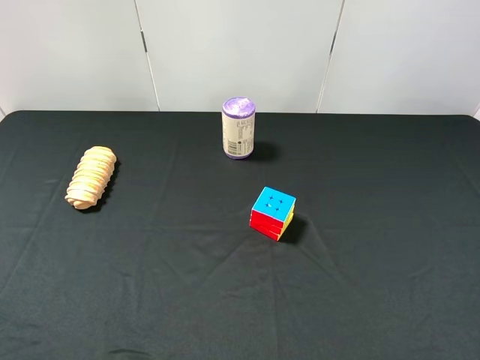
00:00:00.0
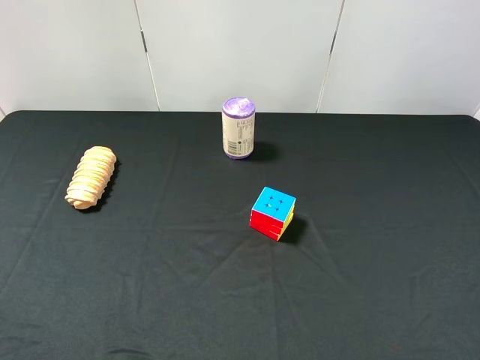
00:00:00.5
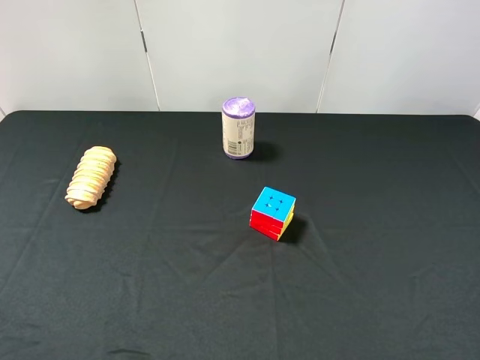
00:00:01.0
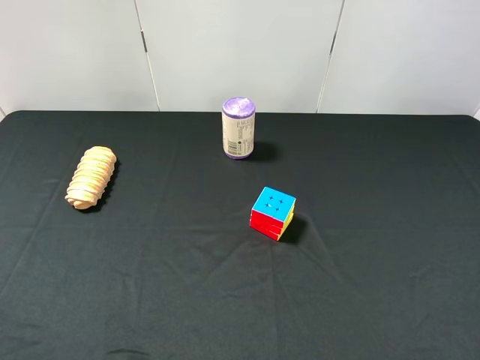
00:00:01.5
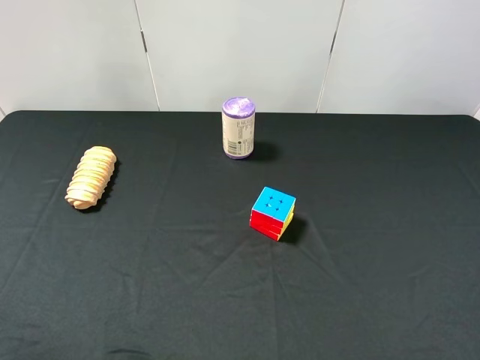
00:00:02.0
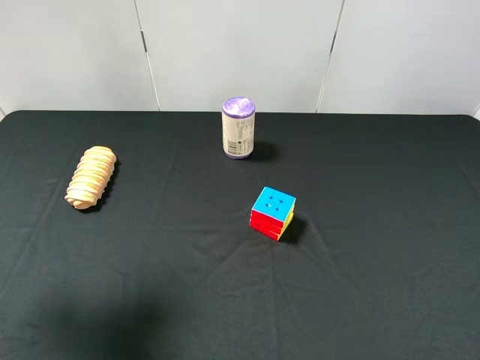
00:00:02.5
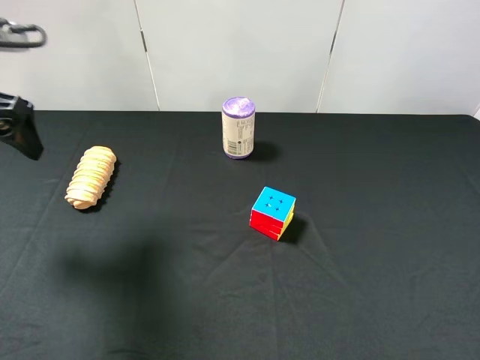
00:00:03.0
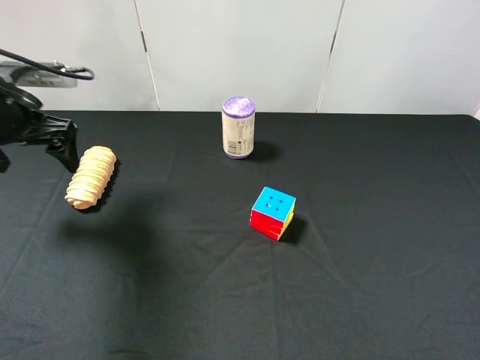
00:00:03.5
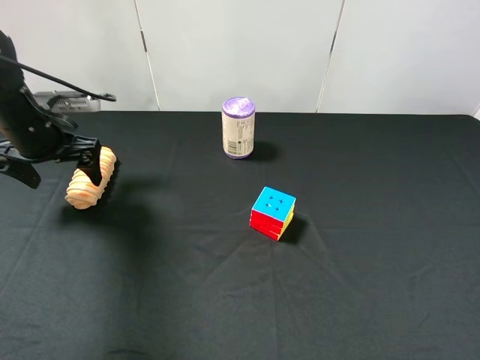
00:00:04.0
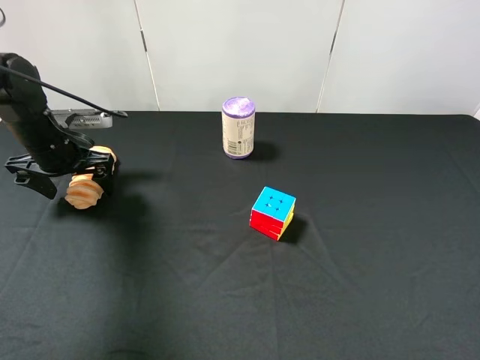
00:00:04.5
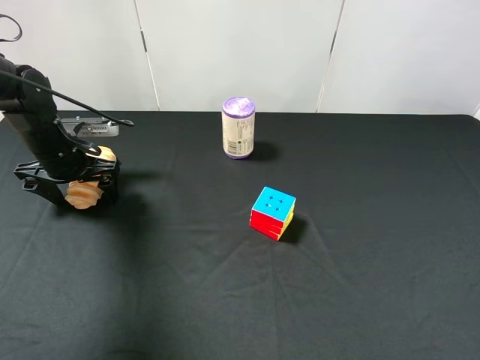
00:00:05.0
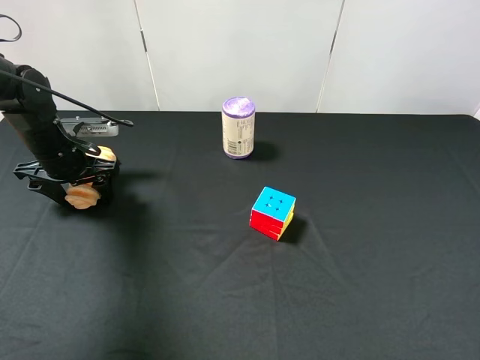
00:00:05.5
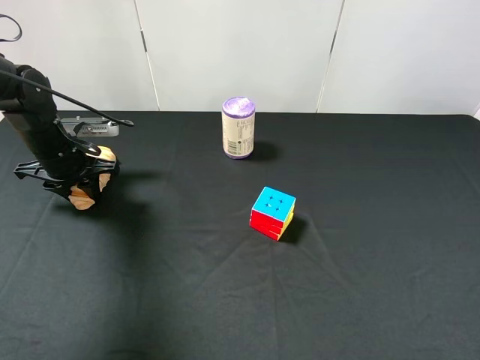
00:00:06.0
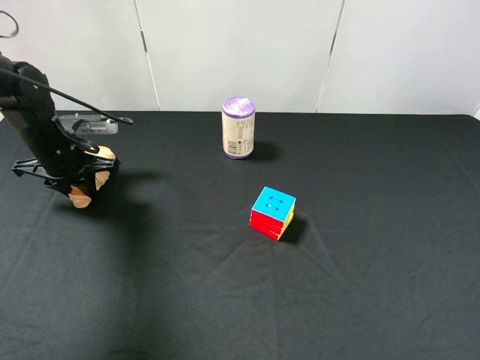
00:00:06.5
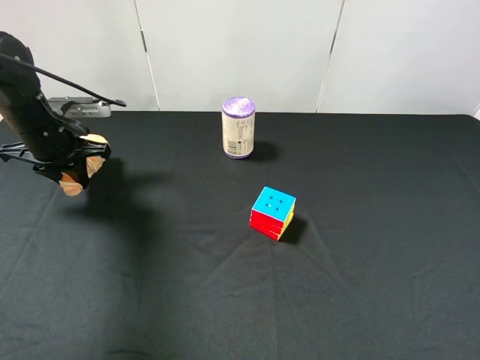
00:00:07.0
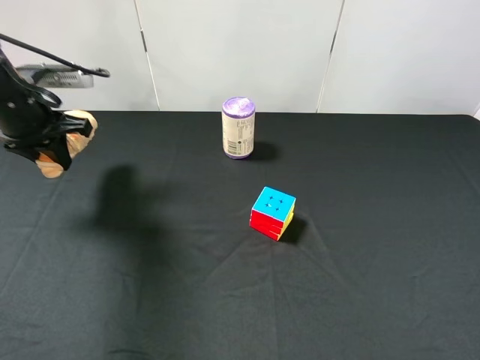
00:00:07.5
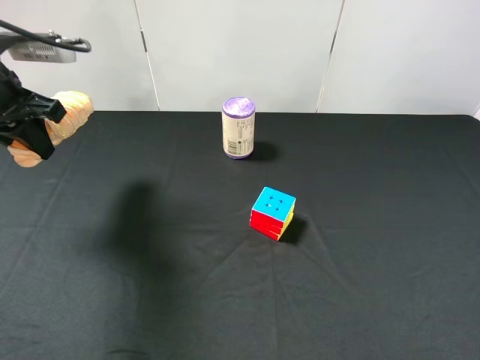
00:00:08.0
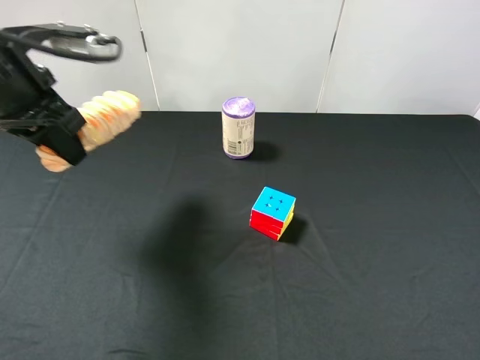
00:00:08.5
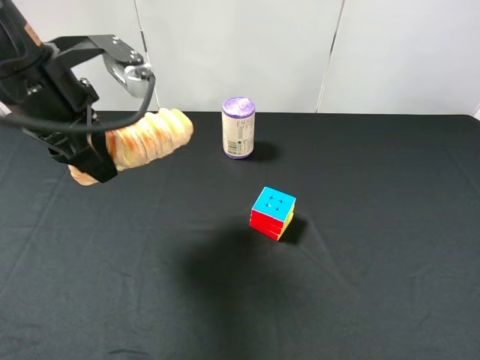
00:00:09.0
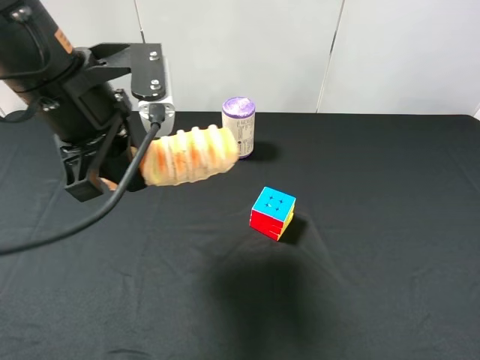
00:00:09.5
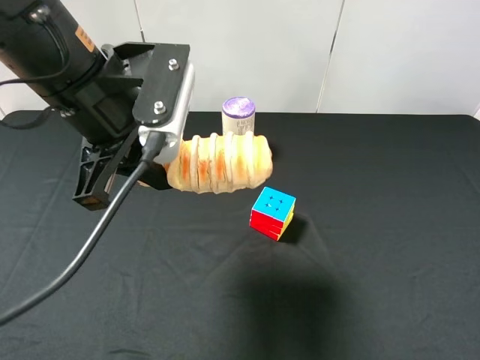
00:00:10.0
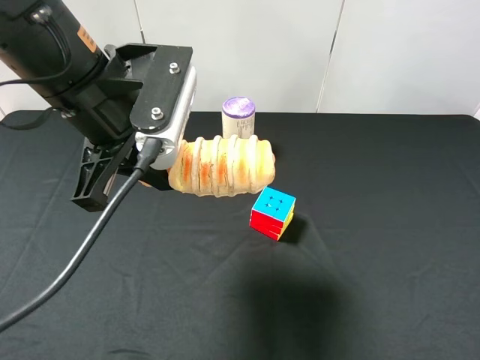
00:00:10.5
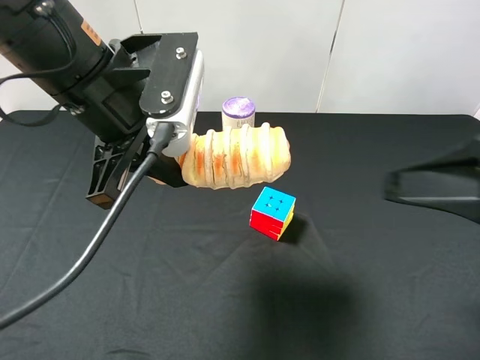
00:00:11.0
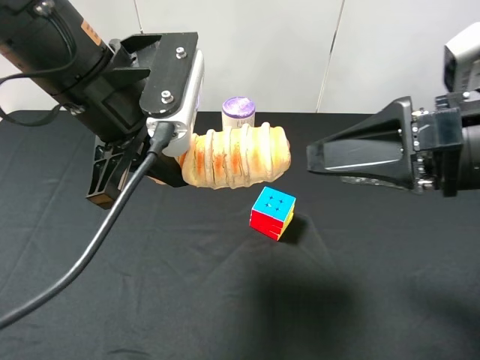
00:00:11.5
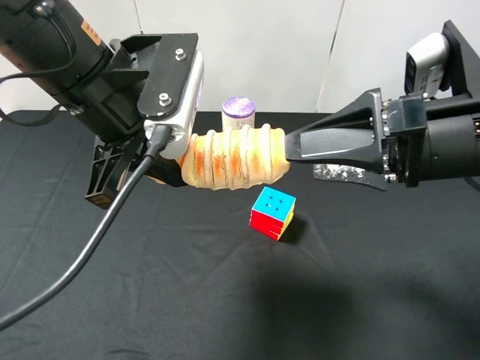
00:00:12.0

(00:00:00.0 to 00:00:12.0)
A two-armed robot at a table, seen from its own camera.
Task of the whole recording: use the left gripper to pick up the item and transfer it from the left gripper to the right gripper.
00:00:02.0 - 00:00:04.0: The left gripper goes about 35 cm forward and downward.
00:00:04.0 - 00:00:06.0: The left gripper heads downward, covering some 5 cm, and closes.
00:00:06.0 - 00:00:08.0: The left gripper moves upward and backward, approximately 15 cm.
00:00:08.0 - 00:00:10.0: The left gripper moves to the right and backward, some 15 cm.
00:00:10.0 - 00:00:12.0: The right gripper travels forward and to the left by approximately 20 cm.

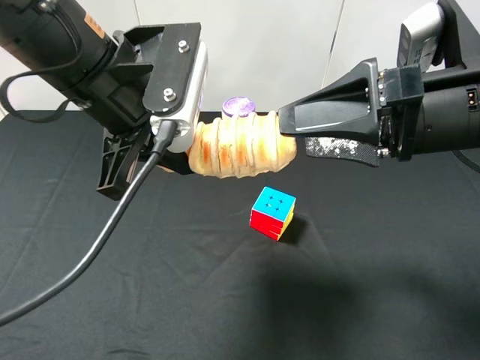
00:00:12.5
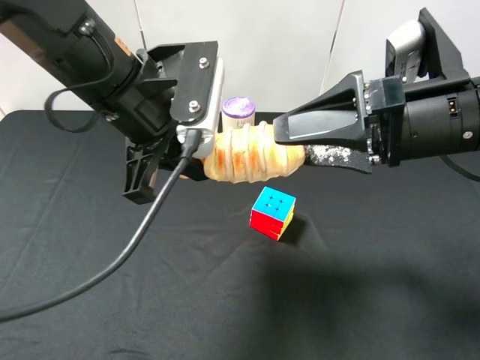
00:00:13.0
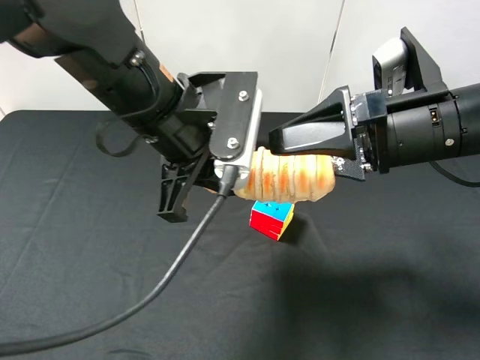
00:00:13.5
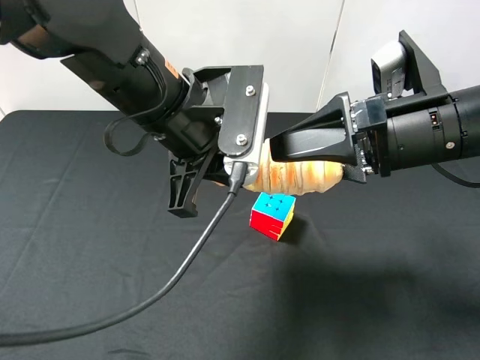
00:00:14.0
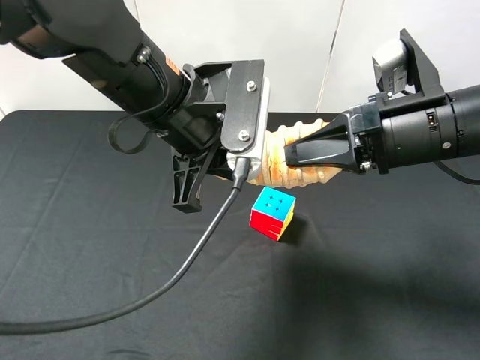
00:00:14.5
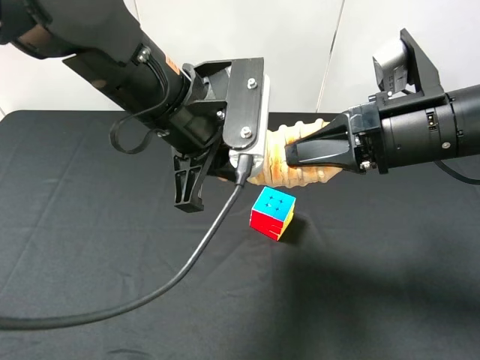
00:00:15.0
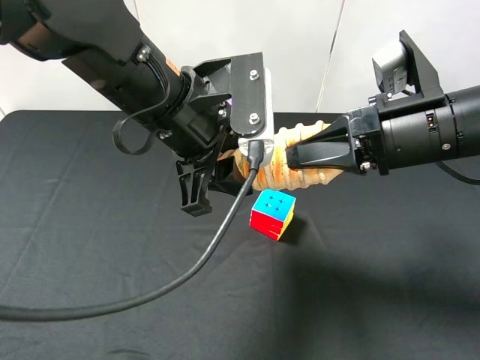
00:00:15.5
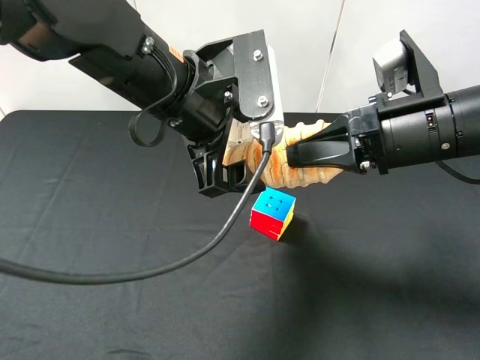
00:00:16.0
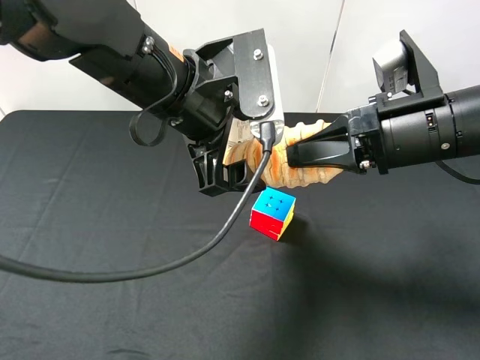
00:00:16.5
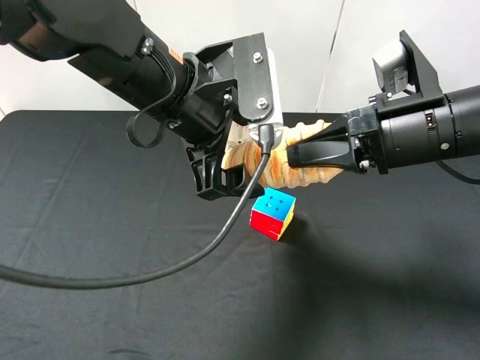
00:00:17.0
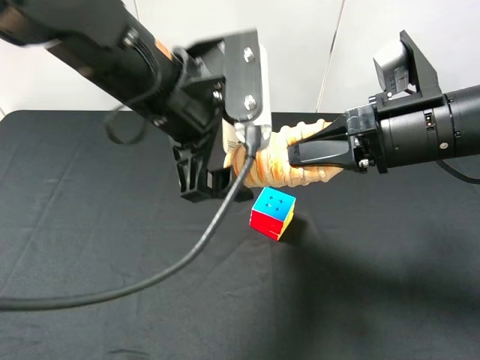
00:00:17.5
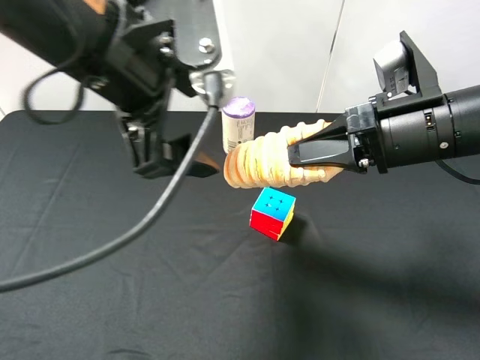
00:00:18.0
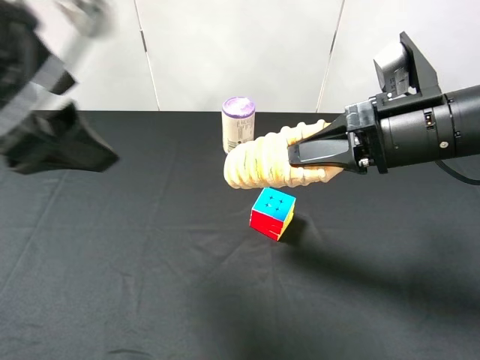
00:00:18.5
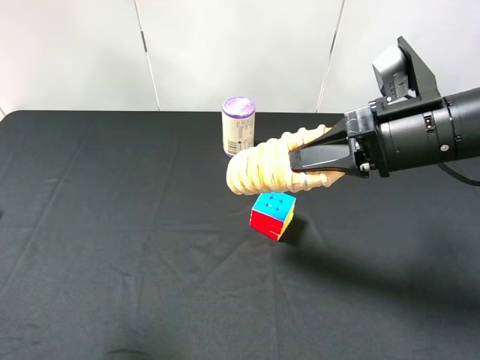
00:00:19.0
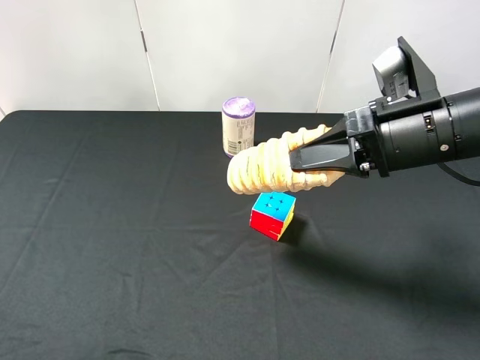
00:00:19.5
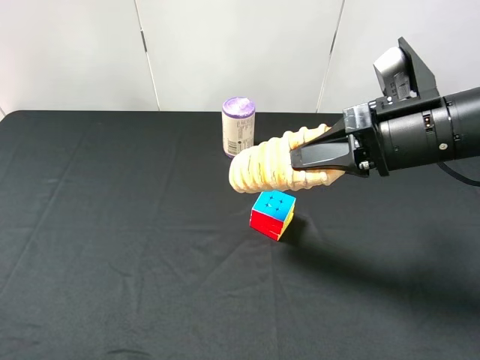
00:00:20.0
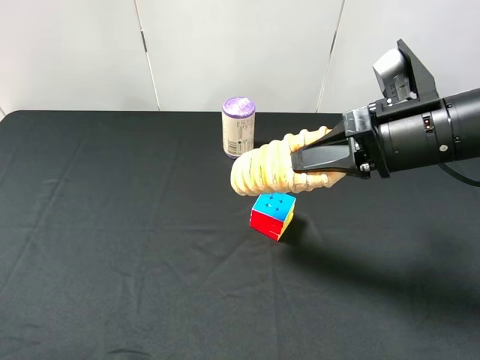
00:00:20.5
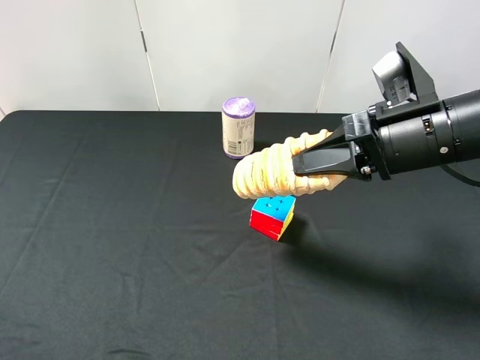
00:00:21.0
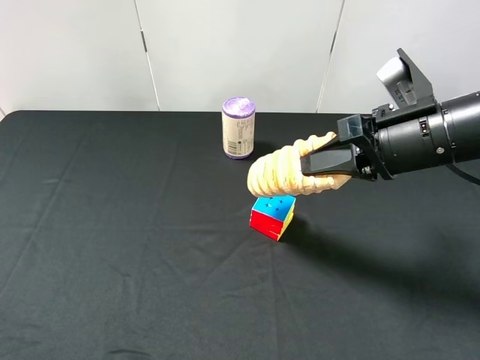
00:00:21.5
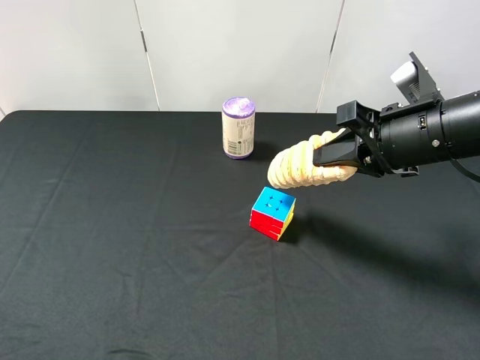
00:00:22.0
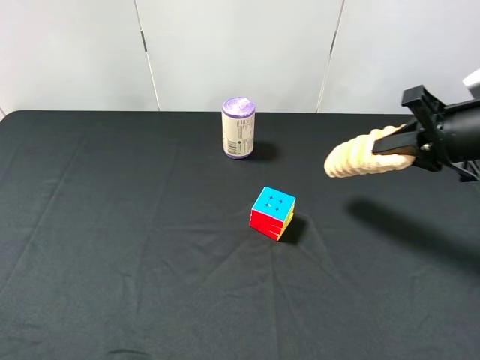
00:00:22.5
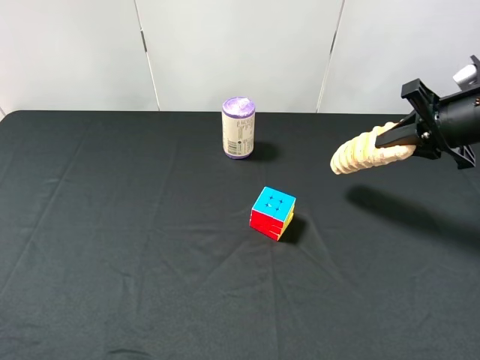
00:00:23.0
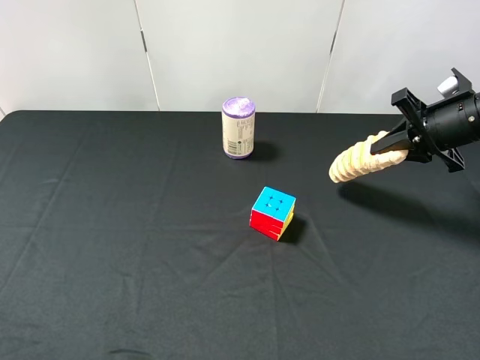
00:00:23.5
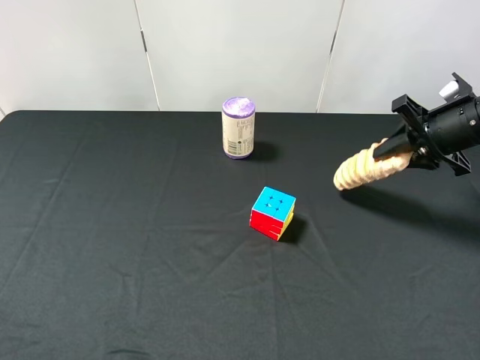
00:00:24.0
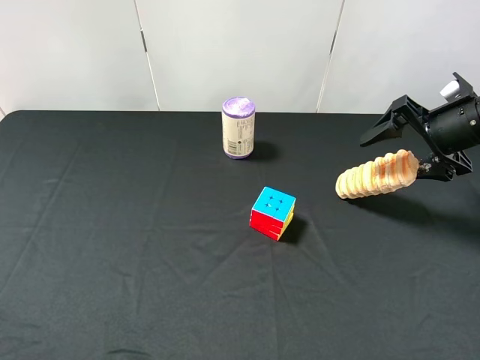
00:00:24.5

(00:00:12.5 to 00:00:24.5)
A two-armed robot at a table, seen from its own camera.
Task of the whole recording: use the left gripper to pick up the item and transfer it from the left gripper to the right gripper.
00:00:12.5 - 00:00:14.5: The left gripper changes place by approximately 5 cm. Meanwhile the right gripper closes.
00:00:14.5 - 00:00:16.5: The left gripper opens its fingers.
00:00:16.5 - 00:00:18.5: The left gripper is displaced to the left, upward and backward by roughly 20 cm.
00:00:18.5 - 00:00:20.5: The left gripper heads backward, to the left and downward, covering about 20 cm.
00:00:20.5 - 00:00:22.5: The right gripper shifts about 10 cm to the right.
00:00:22.5 - 00:00:24.5: The right gripper is displaced forward by some 5 cm, and opens.

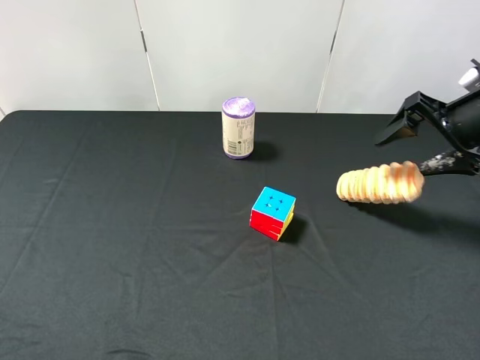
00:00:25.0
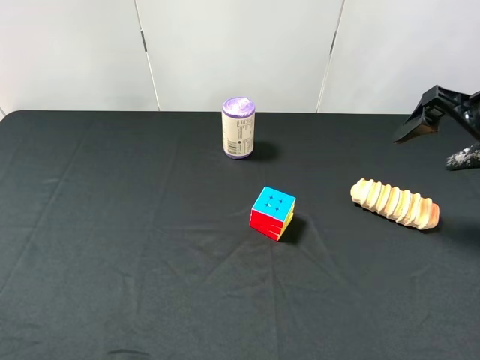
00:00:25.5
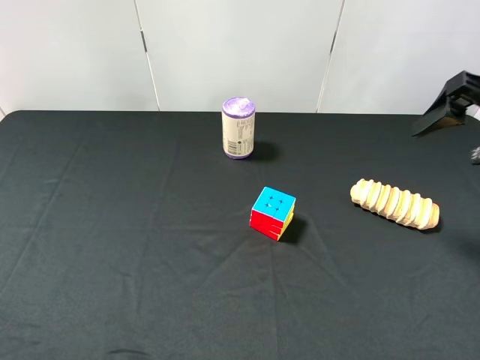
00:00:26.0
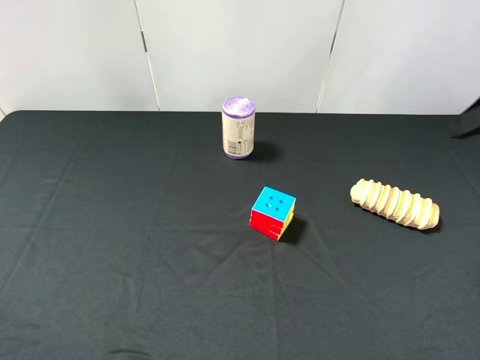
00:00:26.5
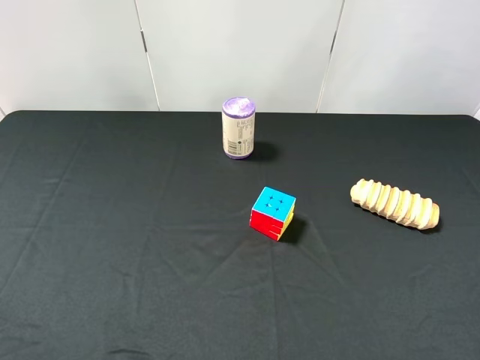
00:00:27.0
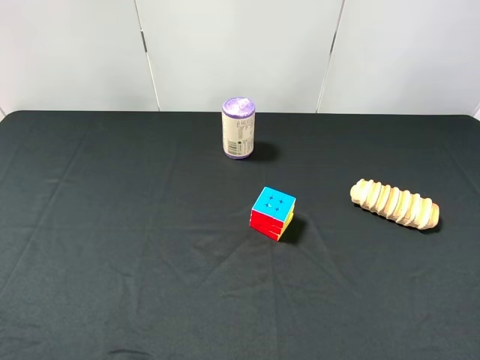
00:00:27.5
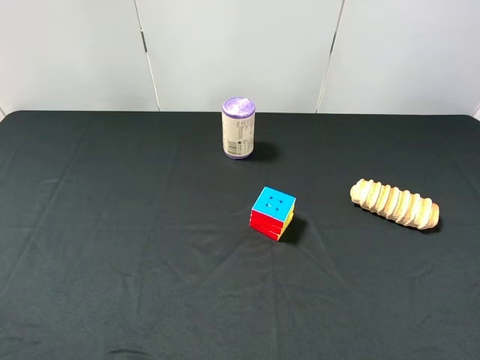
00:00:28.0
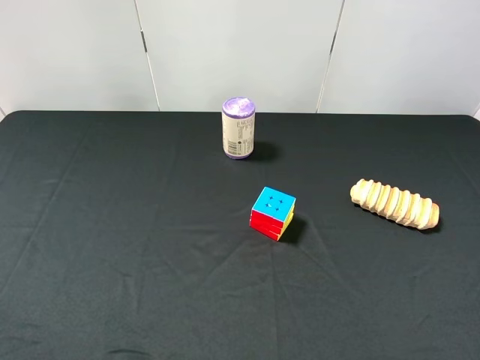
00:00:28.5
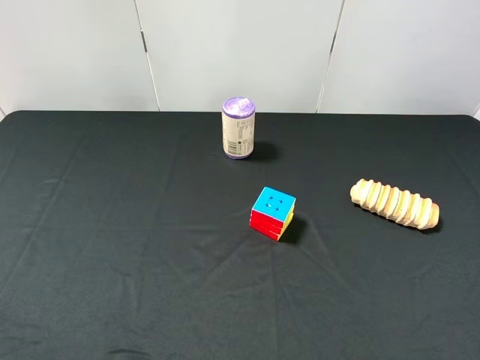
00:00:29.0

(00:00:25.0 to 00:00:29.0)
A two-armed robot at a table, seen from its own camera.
Task of the whole recording: use the left gripper to pick up the item and transfer it from the left gripper to the right gripper.
00:00:25.0 - 00:00:27.0: The right gripper shifts roughly 20 cm backward and upward.
